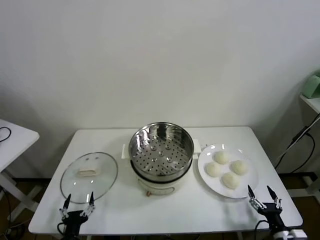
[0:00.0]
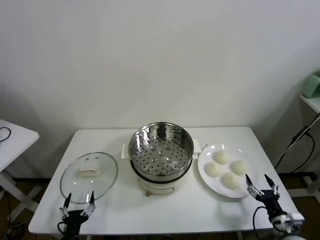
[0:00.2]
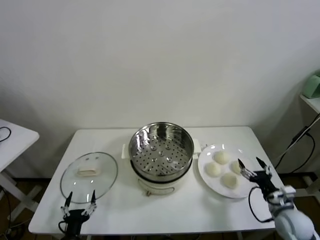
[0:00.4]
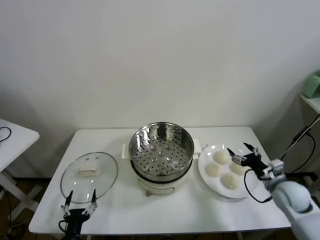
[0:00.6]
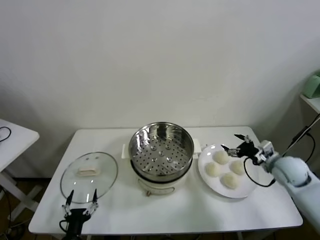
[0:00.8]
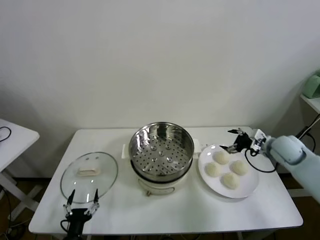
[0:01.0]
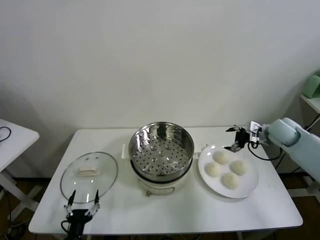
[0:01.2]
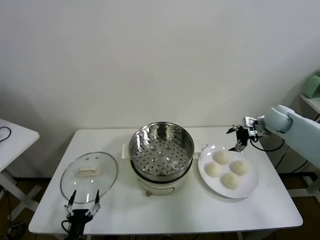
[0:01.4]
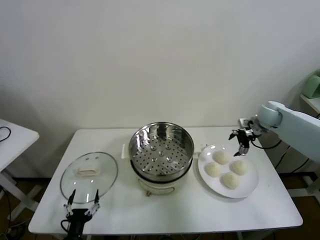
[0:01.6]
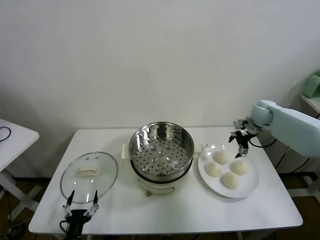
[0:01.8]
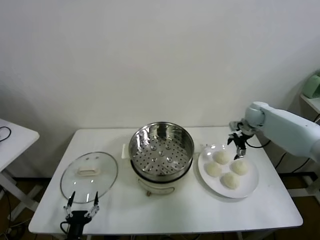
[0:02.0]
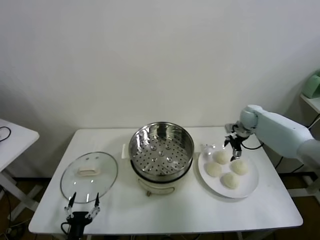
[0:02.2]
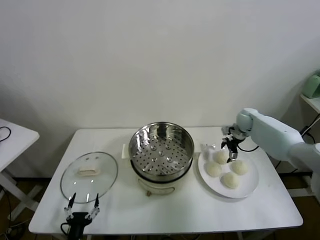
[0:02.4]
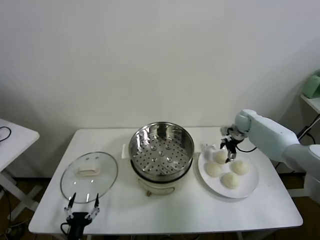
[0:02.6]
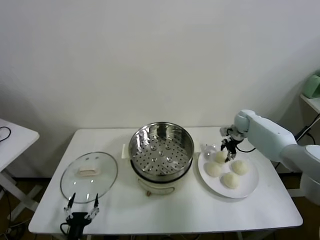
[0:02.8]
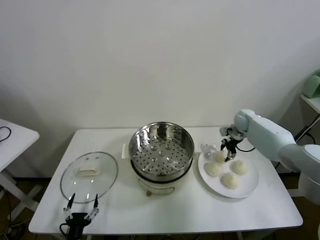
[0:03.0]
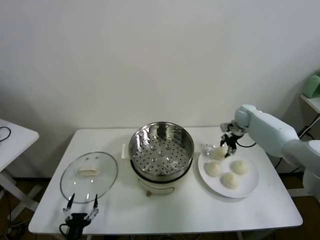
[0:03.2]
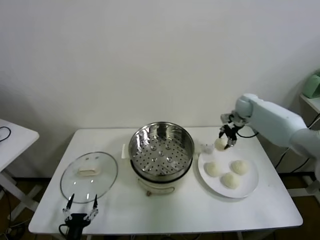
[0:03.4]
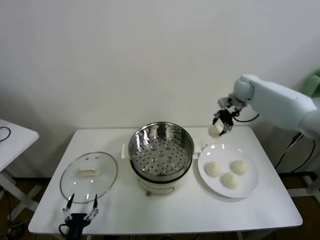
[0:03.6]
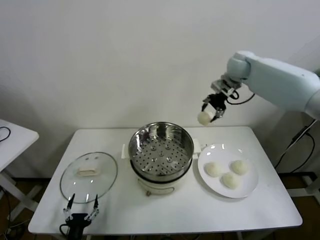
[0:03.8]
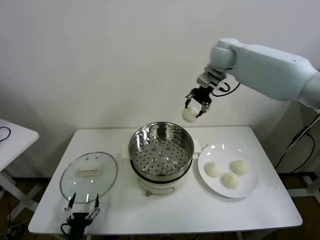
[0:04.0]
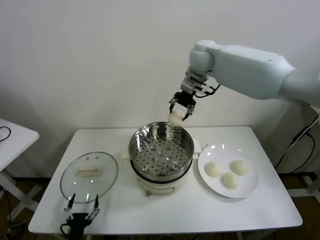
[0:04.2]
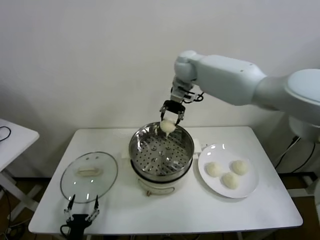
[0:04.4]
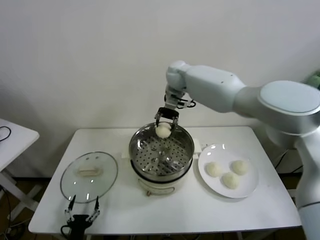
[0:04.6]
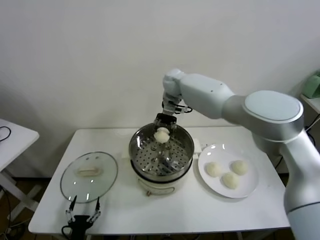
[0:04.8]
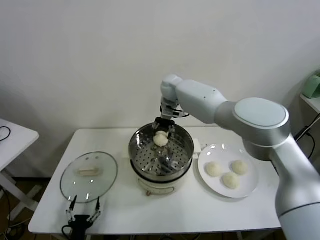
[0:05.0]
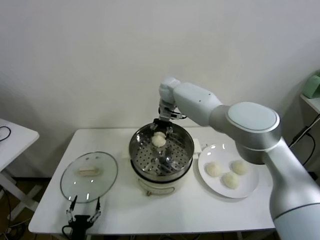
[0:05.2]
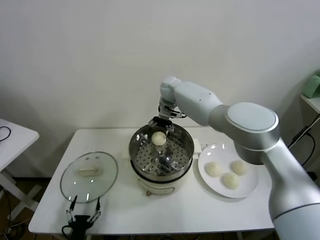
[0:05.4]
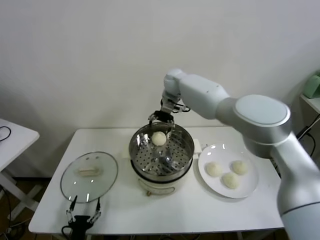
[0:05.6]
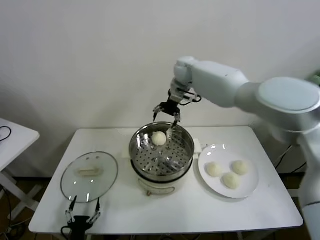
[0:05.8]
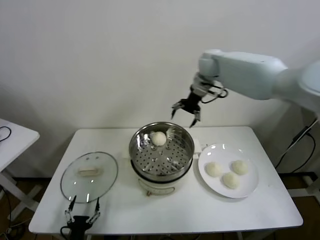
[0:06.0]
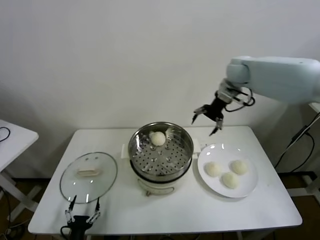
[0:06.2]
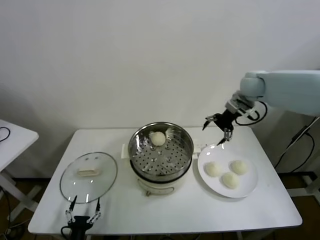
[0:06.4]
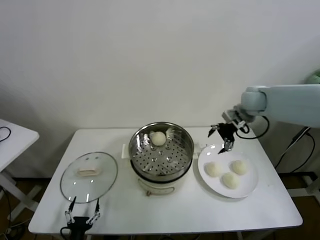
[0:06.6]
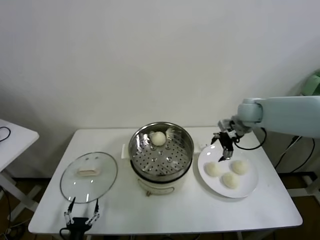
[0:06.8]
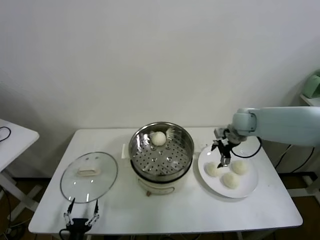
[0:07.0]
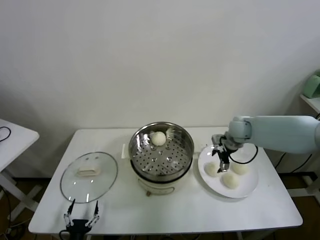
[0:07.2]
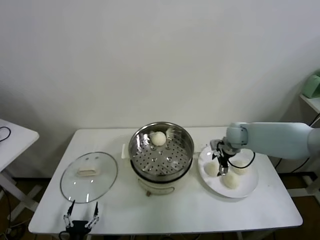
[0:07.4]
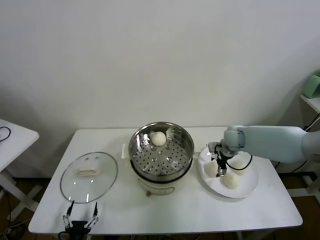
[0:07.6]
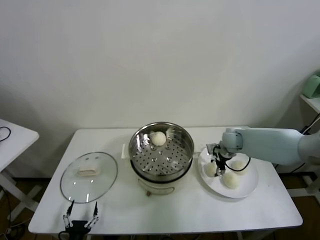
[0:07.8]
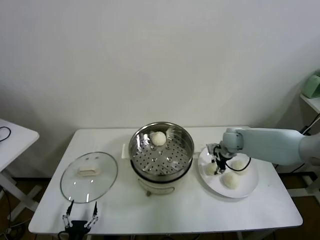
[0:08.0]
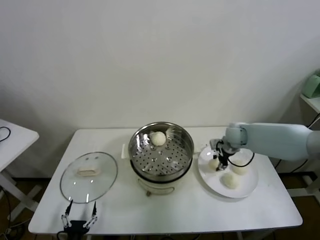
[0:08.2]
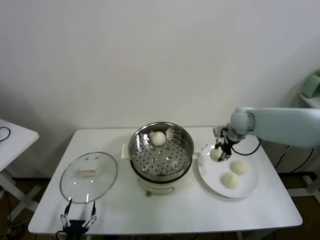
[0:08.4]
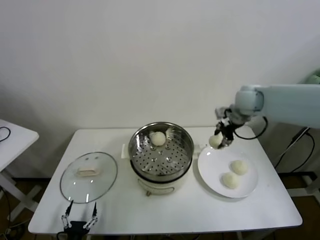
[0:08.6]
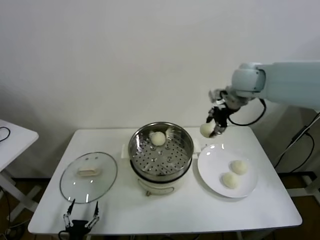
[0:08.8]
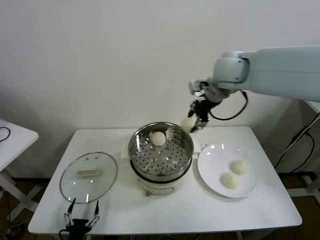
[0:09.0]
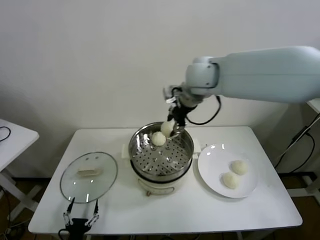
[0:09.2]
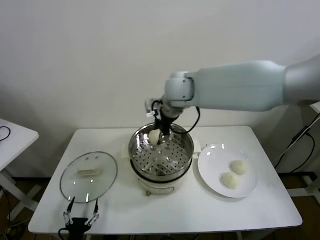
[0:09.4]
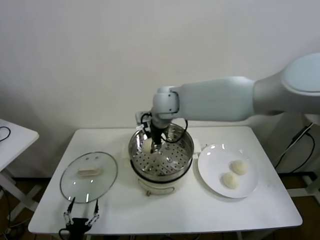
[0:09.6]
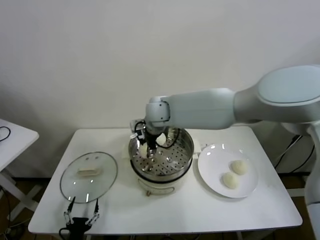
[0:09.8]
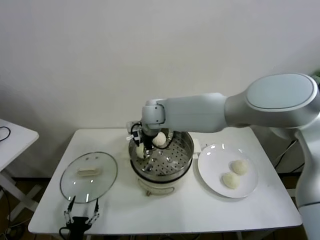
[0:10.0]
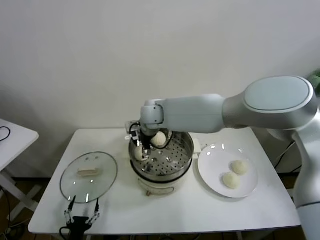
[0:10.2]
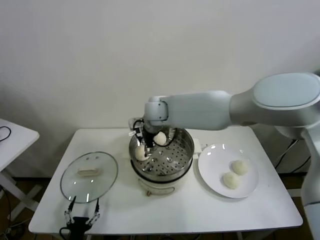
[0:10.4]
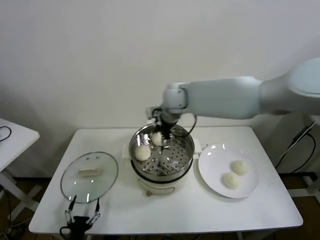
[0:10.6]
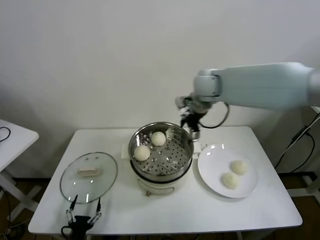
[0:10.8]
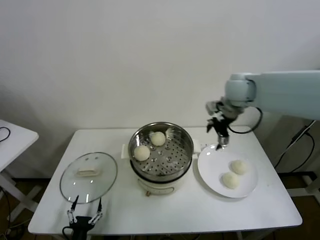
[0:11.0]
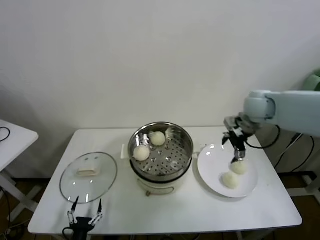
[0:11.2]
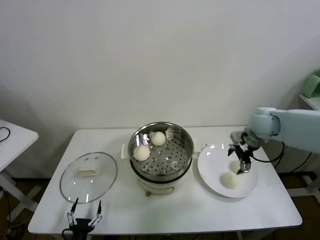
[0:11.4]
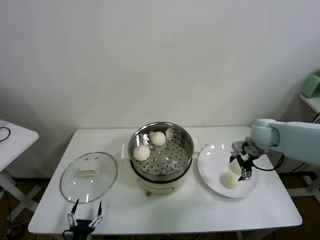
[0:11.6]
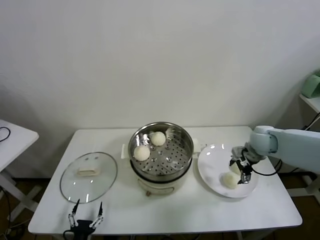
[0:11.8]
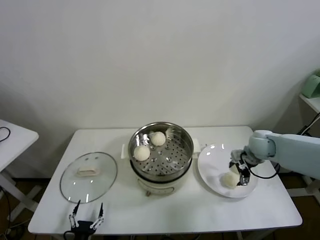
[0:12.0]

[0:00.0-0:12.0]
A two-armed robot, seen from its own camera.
Task of the whole recording: take steamed baozi put them in steamer.
Step, 0.0 to 2.8 s: Grasp the baozi in the plate with right gripper.
Step, 3.0 to 5.4 s: Place the baozi on the steamer with right gripper.
Step, 5.6 to 7.8 s: Grasp the baozi in the plate with right gripper.
Step, 8.2 to 10.2 s: Place the baozi on the steamer with right gripper.
1.6 to 3.0 s: The right gripper goes approximately 10 cm downward and forward, and closes its fingers.
3.0 to 4.4 s: The right gripper travels to the left and upward by some 35 cm.
4.4 to 6.0 s: The right gripper shifts roughly 15 cm to the right, and opens its fingers.
6.0 to 7.6 s: The right gripper heads downward, covering some 25 cm.
7.6 to 9.0 s: The right gripper moves upward and to the left, roughly 35 cm, and closes its fingers.
9.0 to 10.4 s: The right gripper goes about 20 cm to the left and downward, and opens its fingers.
10.4 to 12.0 s: The right gripper heads to the right, covering roughly 35 cm.

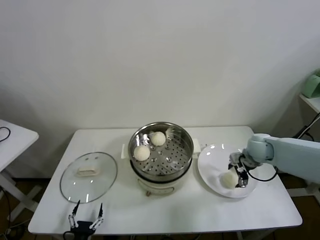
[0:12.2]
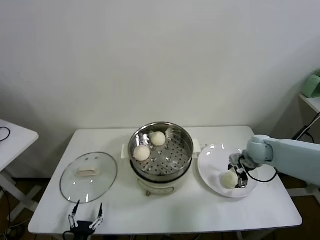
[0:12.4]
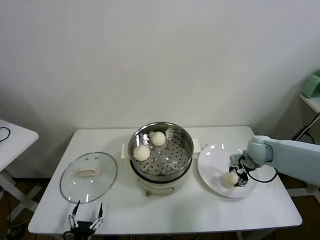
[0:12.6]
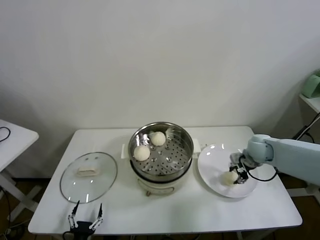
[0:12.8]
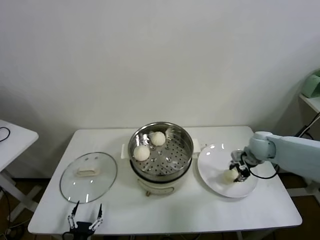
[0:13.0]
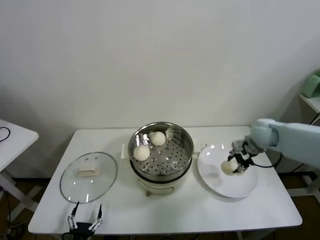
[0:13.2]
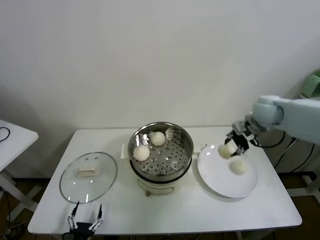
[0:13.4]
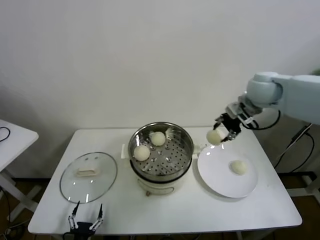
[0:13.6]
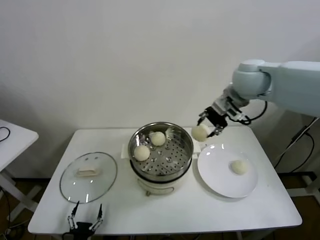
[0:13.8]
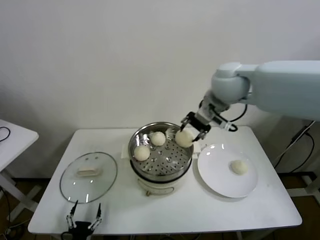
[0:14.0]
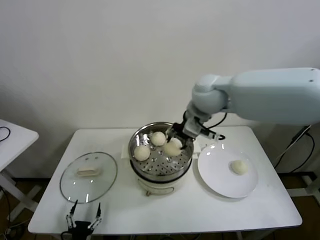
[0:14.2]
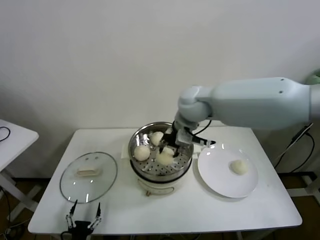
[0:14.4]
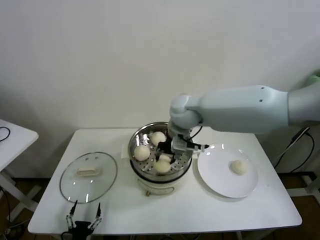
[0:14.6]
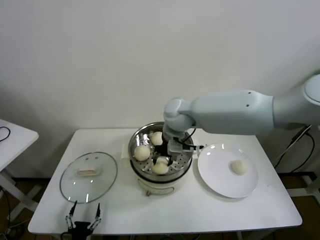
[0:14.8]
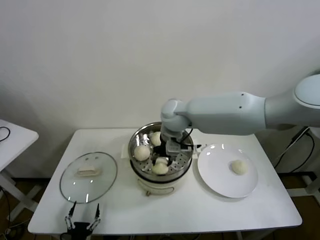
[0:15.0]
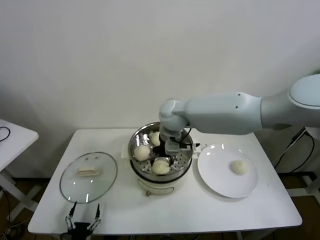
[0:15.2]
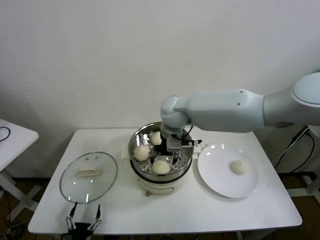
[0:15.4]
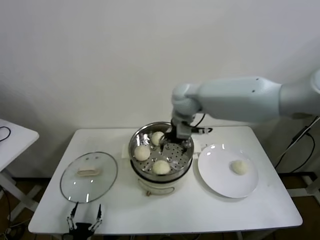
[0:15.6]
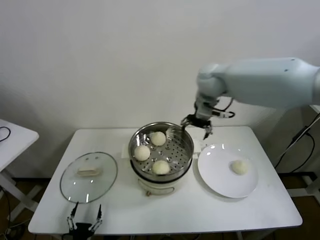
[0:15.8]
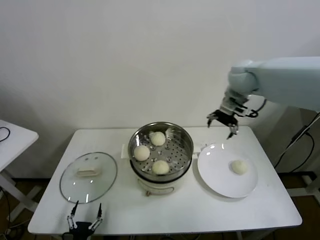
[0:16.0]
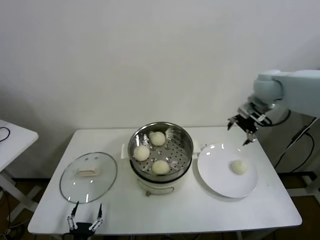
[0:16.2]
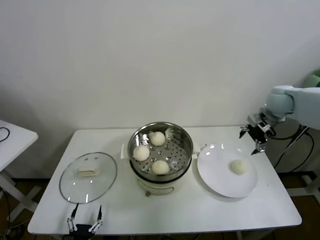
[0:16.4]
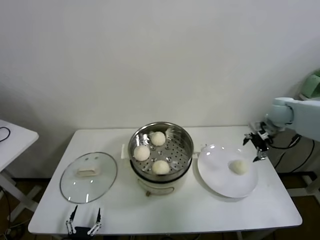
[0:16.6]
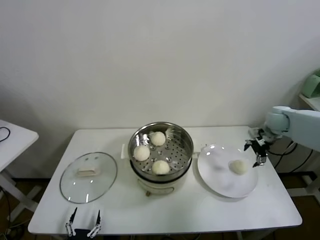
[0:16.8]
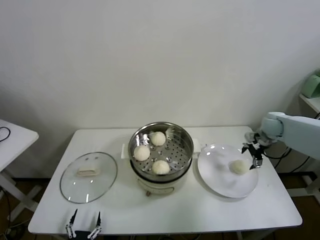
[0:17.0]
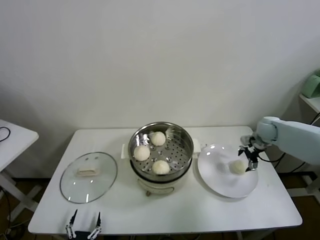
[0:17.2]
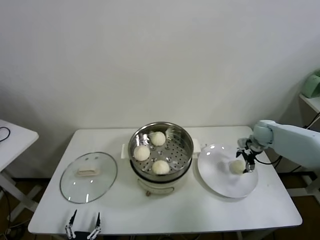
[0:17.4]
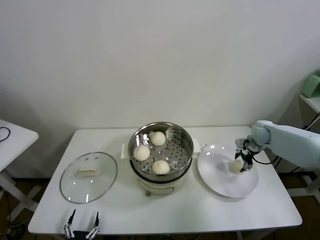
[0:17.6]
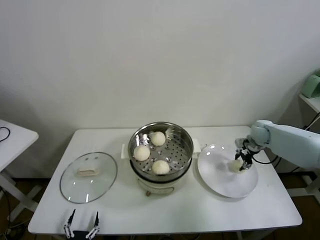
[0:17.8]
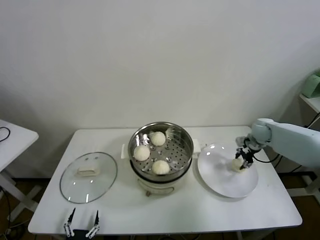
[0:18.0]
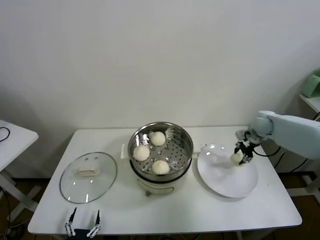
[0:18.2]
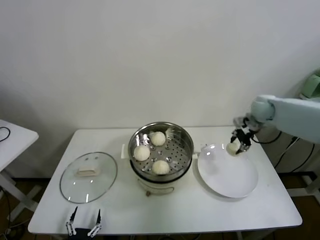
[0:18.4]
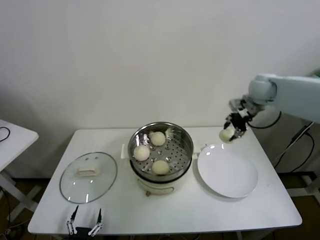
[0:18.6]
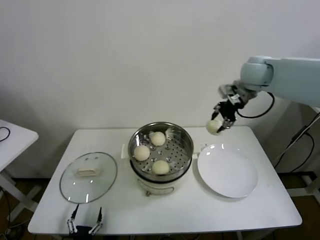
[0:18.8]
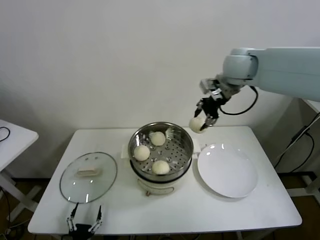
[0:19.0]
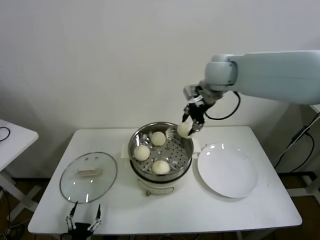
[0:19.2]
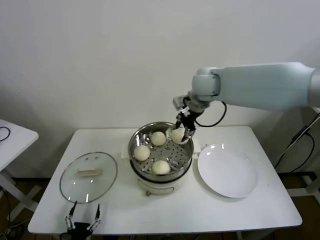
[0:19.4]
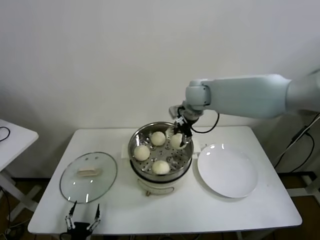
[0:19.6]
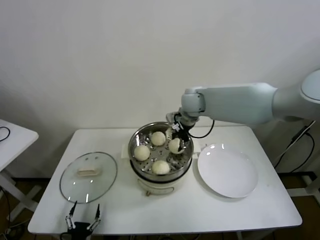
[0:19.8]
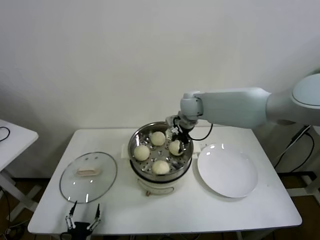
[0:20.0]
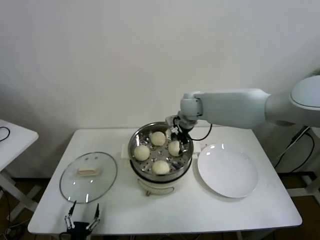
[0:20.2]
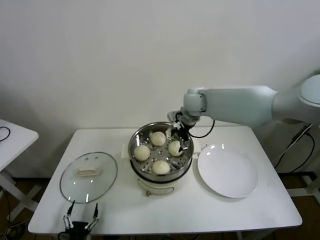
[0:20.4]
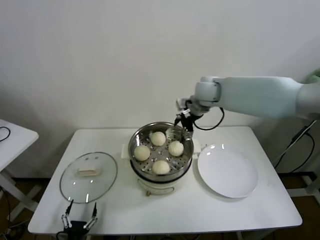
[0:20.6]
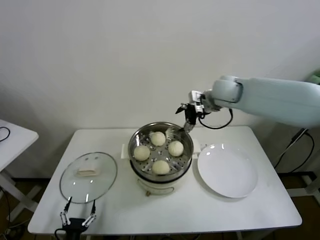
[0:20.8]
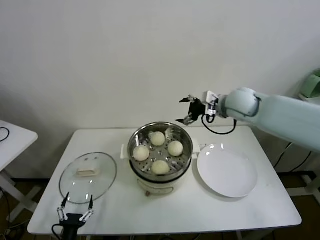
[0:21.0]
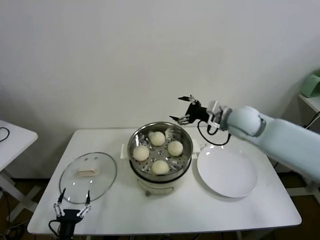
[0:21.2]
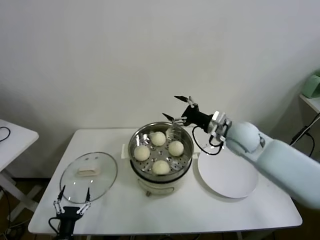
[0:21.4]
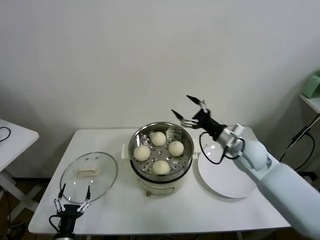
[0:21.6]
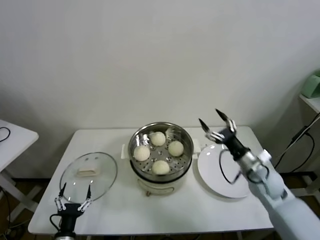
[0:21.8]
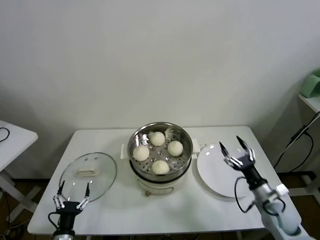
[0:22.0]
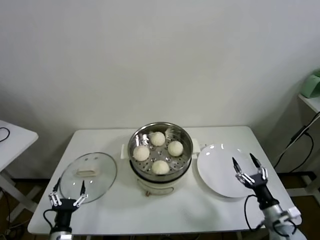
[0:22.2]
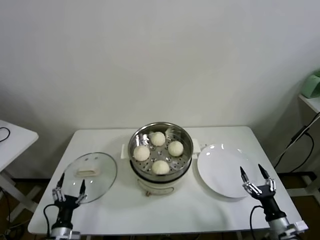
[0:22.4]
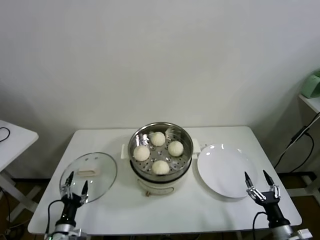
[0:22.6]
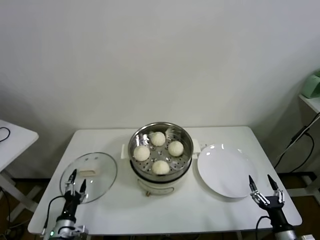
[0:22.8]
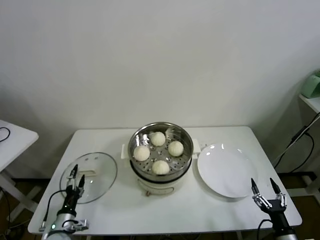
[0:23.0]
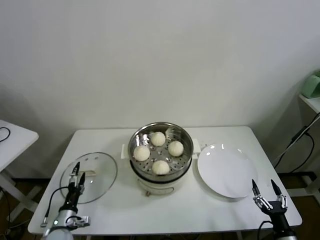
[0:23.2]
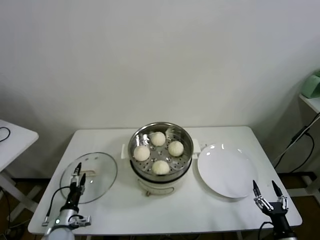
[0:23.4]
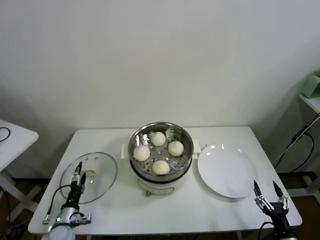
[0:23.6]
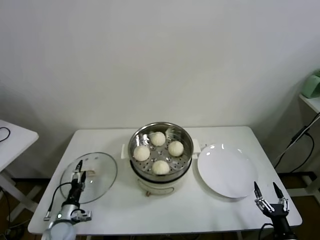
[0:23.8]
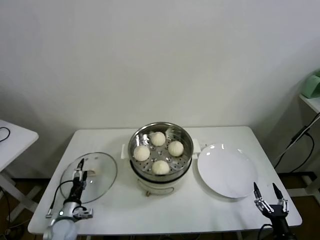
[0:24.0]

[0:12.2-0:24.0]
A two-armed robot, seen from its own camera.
Task of the whole recording: take steamed baozi put them in steamer.
Step, 12.8 to 15.4 s: Place the baozi on the steamer with right gripper.
Step, 15.6 to 17.8 s: Grasp the baozi in the plate with right gripper.
Step, 18.0 to 20.2 s: Place the baozi on the steamer with right gripper.
12.2 to 13.6 s: The right gripper travels upward by some 25 cm, and closes.
13.6 to 15.2 s: The right gripper travels to the left and downward by approximately 25 cm, and opens.
15.2 to 16.6 s: The right gripper travels to the right by some 40 cm, and opens up.
16.6 to 18.2 s: The right gripper shifts roughly 5 cm downward, and closes its fingers.
18.2 to 19.6 s: The right gripper moves to the left and upward, about 30 cm.
19.6 to 21.0 s: The right gripper moves to the right, roughly 10 cm, and opens.
21.0 to 22.6 s: The left gripper is displaced forward by some 5 cm, while the right gripper heads downward, backward and to the right, covering roughly 50 cm.
22.6 to 24.0 s: The left gripper goes approximately 10 cm forward.
